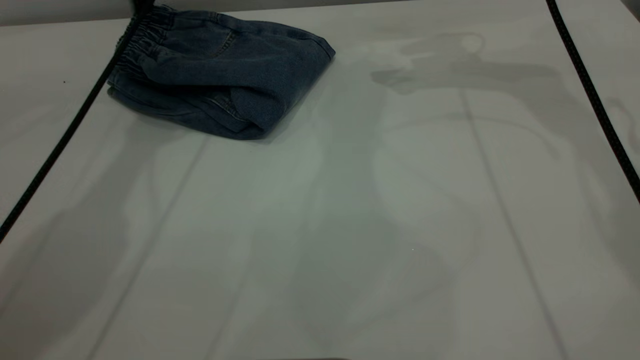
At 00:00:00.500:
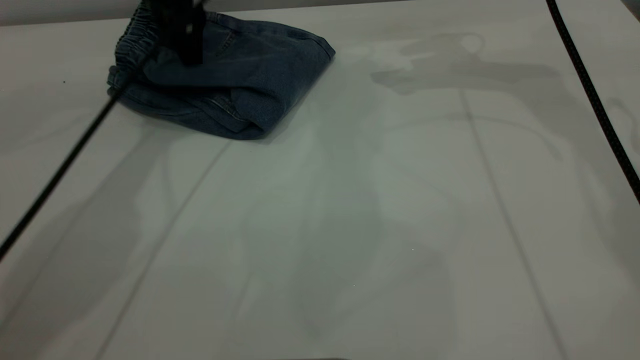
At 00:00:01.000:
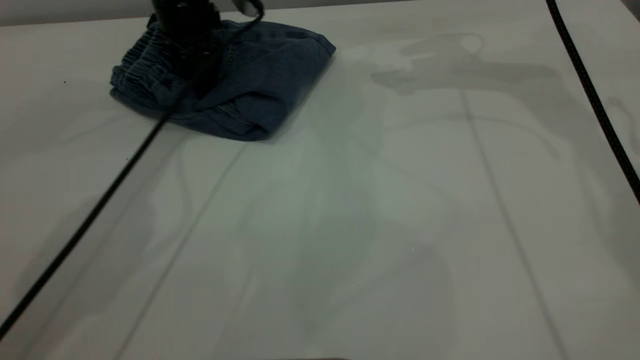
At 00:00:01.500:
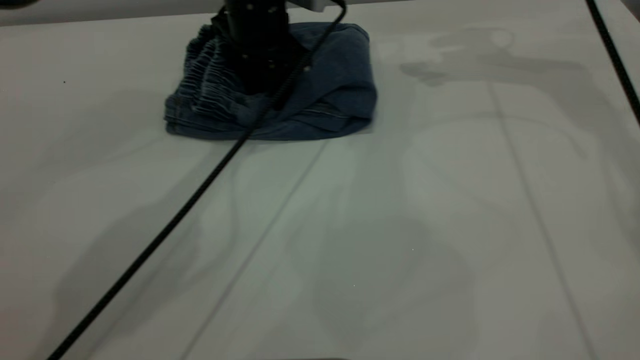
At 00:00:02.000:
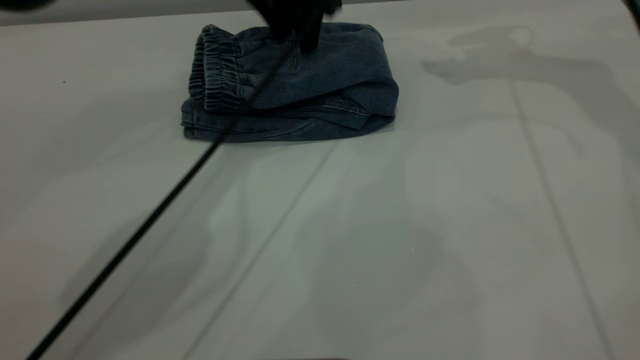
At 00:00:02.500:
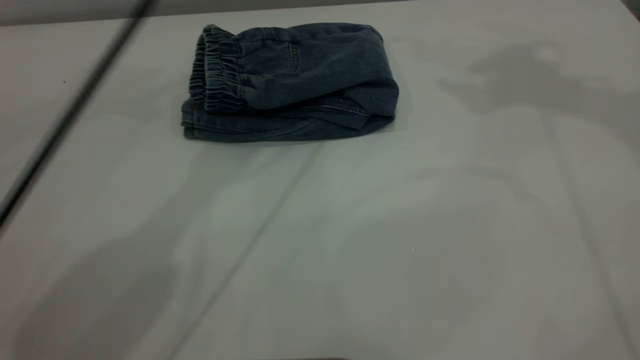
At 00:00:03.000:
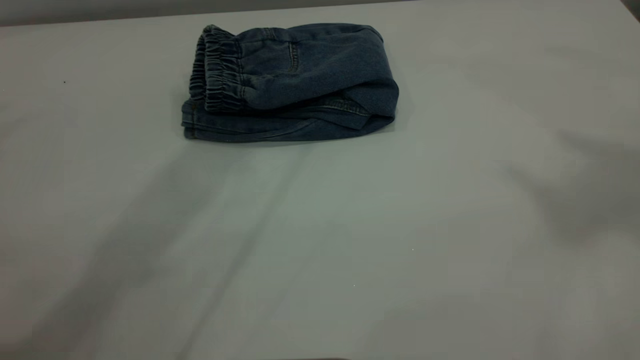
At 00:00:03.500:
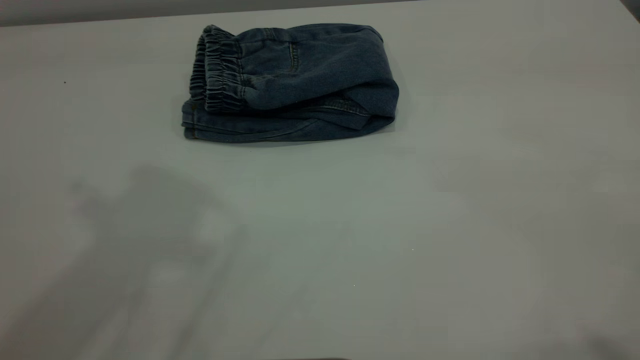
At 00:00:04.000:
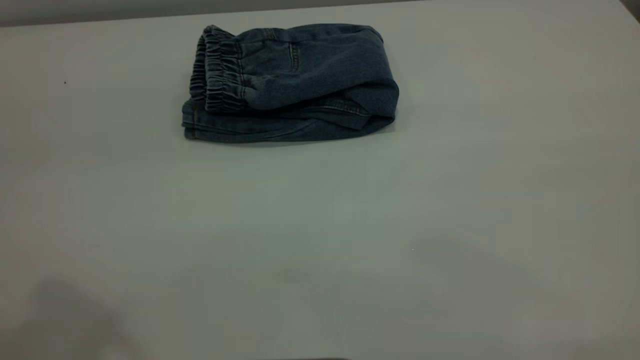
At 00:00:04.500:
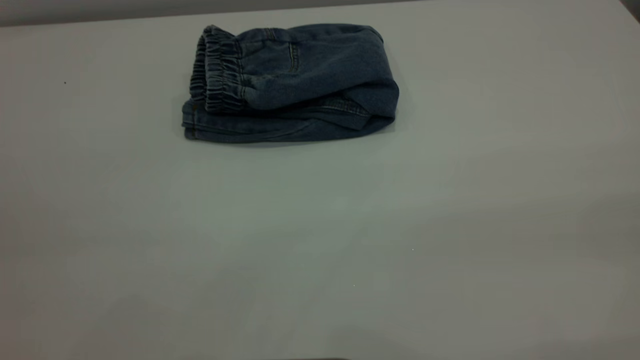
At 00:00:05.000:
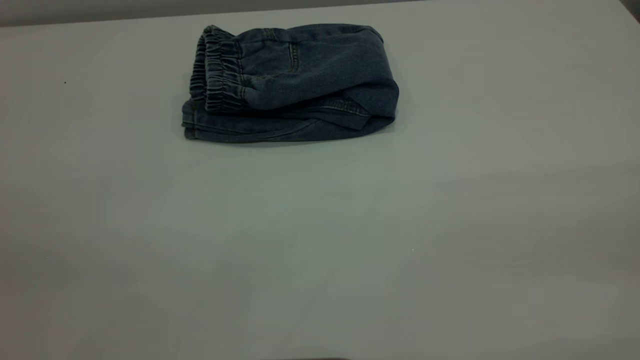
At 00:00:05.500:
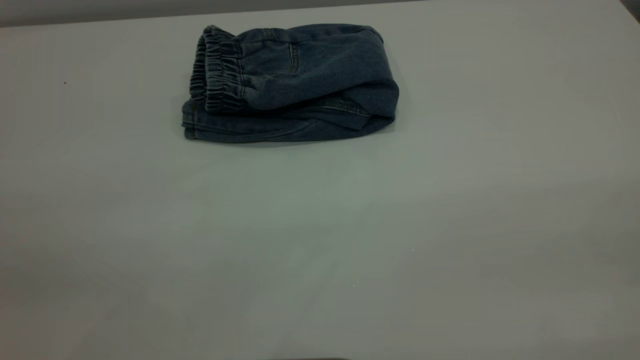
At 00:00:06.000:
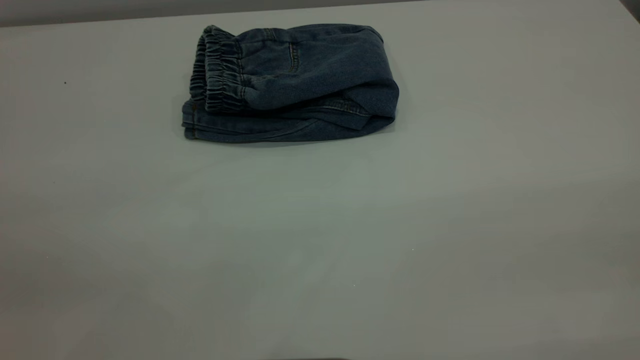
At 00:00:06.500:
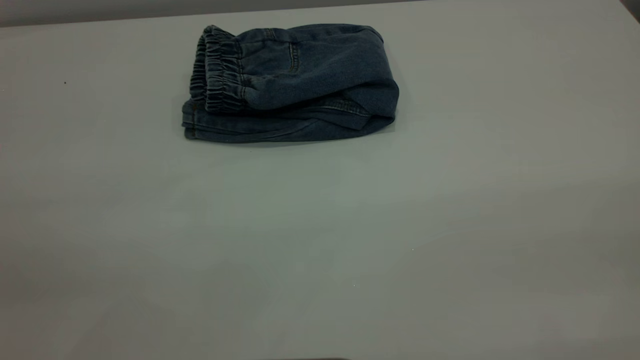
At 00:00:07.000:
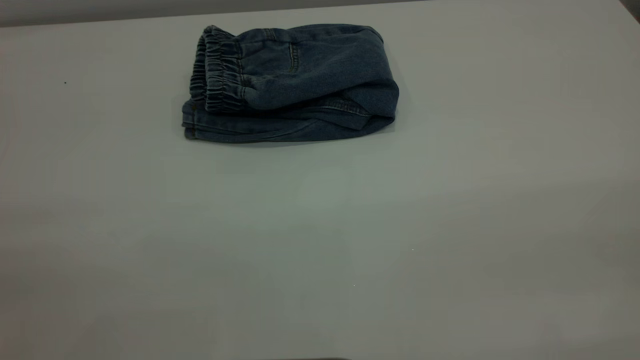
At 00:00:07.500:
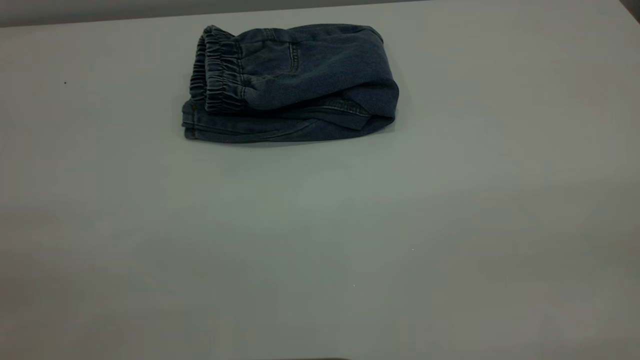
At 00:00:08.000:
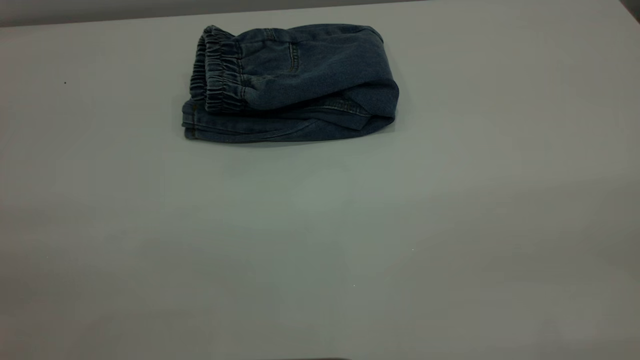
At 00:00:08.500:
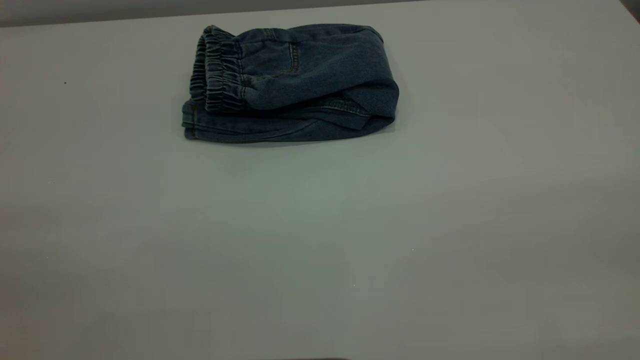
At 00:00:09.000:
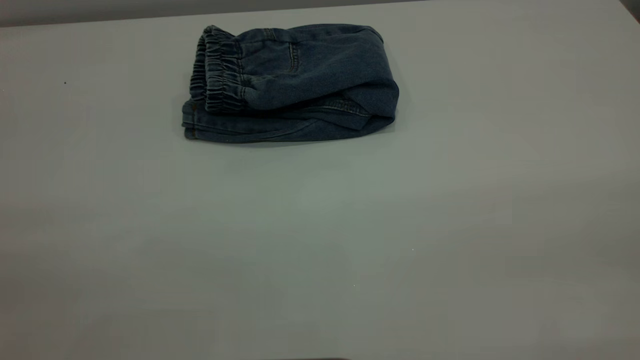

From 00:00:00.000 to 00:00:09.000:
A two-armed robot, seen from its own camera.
From 00:00:00.000 to 00:00:02.000: The right gripper heads to the right, covering some 5 cm, while the left gripper travels to the right by roughly 15 cm.
From 00:00:02.000 to 00:00:04.500: The right gripper moves backward, about 50 cm. Meanwhile the left gripper goes some 50 cm backward and to the left.

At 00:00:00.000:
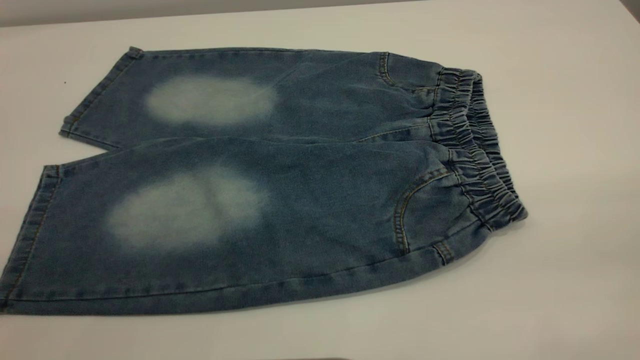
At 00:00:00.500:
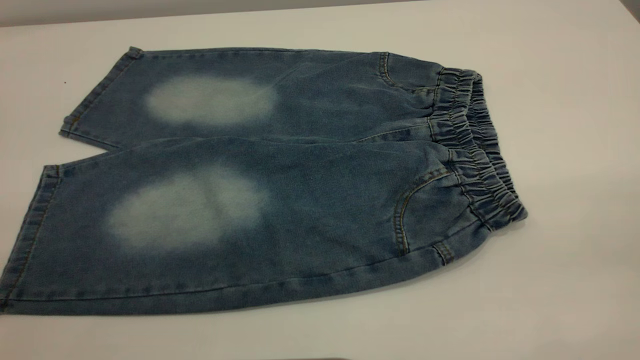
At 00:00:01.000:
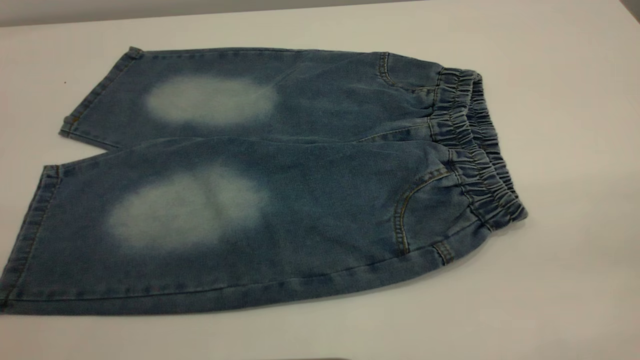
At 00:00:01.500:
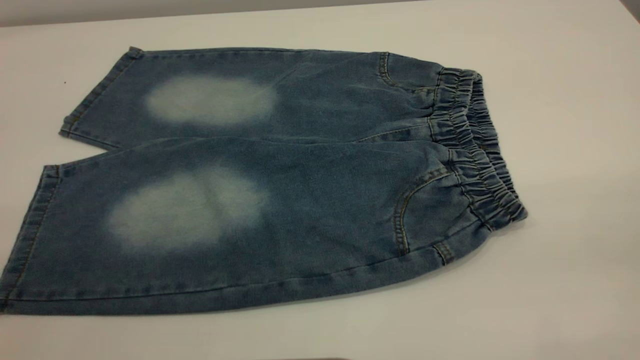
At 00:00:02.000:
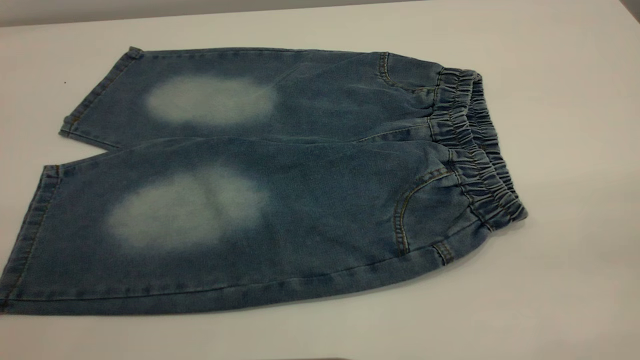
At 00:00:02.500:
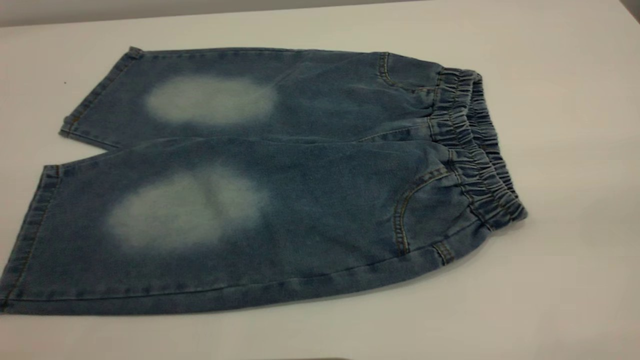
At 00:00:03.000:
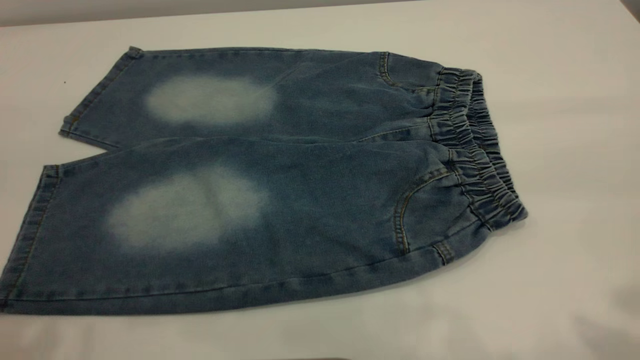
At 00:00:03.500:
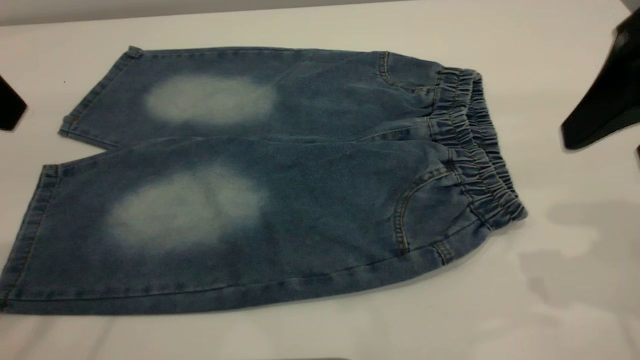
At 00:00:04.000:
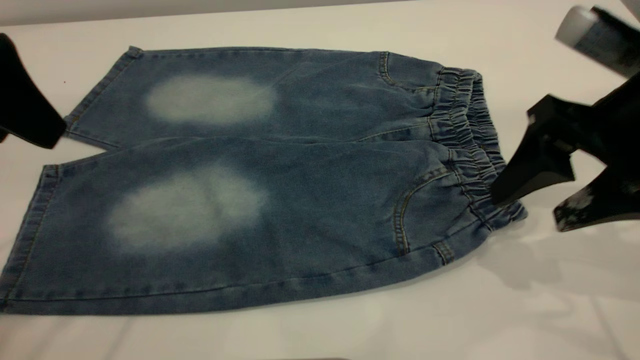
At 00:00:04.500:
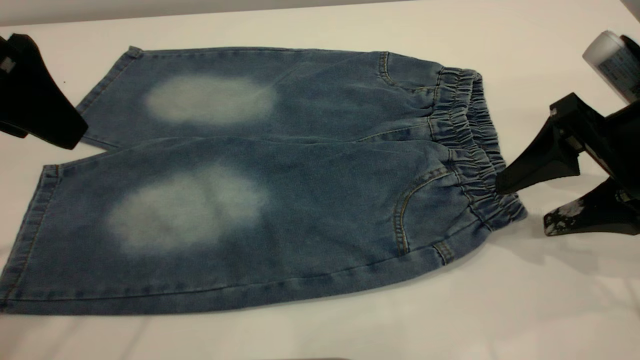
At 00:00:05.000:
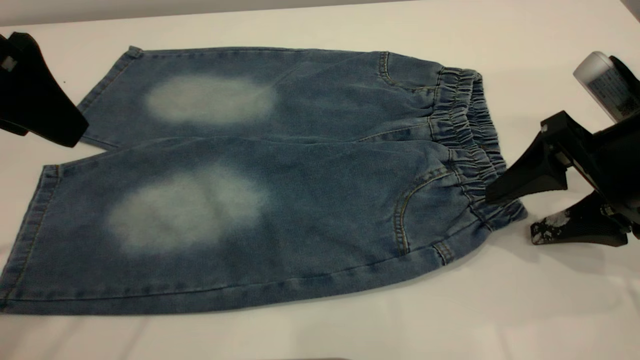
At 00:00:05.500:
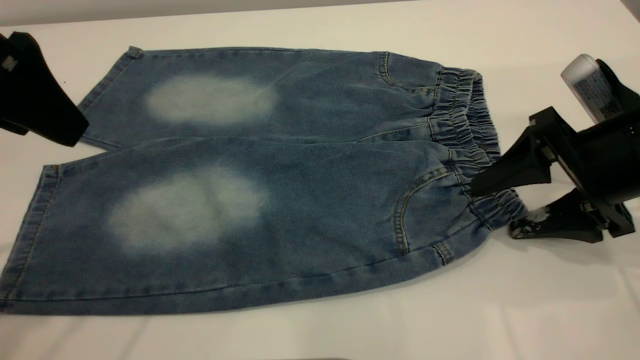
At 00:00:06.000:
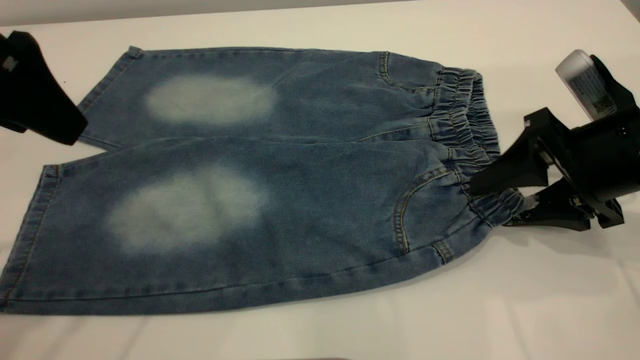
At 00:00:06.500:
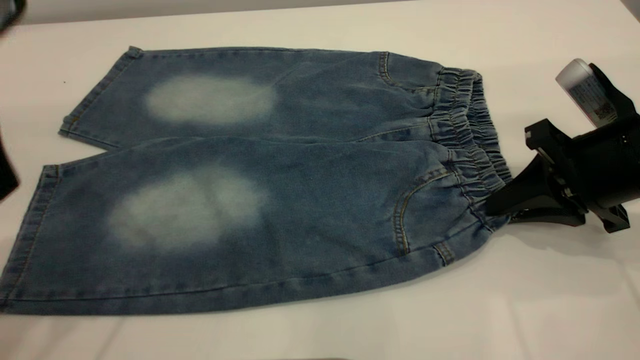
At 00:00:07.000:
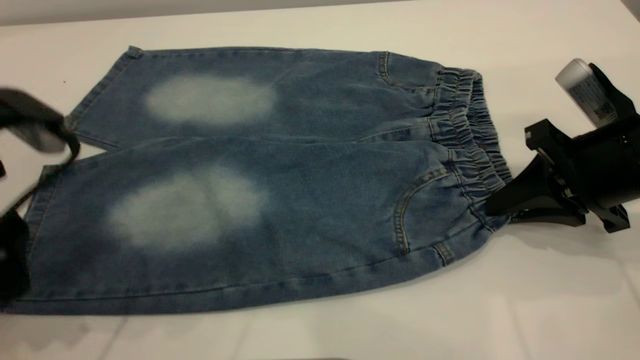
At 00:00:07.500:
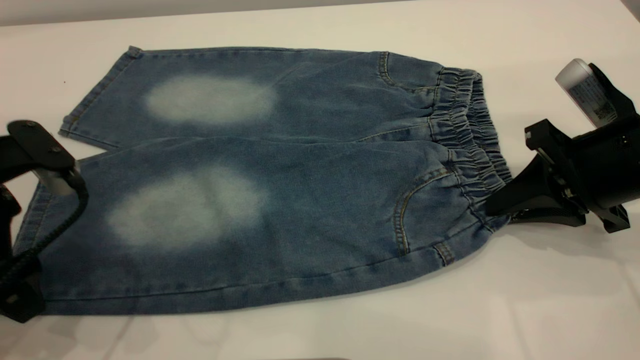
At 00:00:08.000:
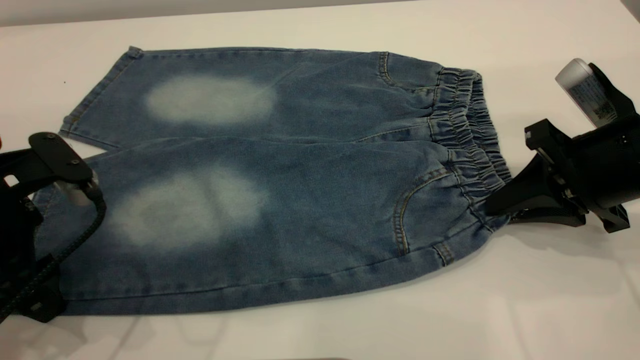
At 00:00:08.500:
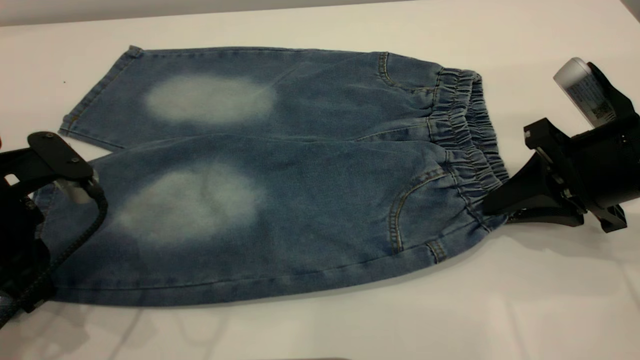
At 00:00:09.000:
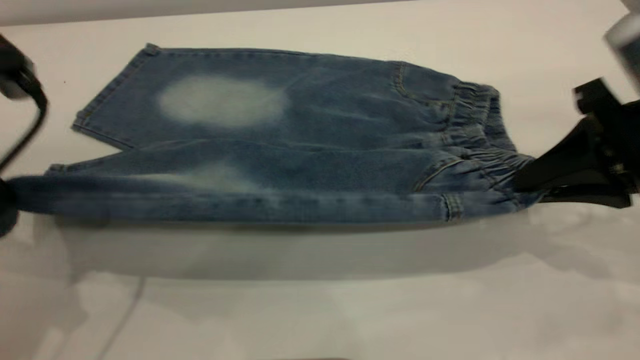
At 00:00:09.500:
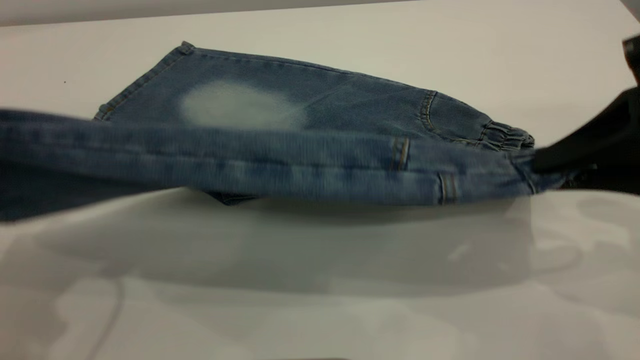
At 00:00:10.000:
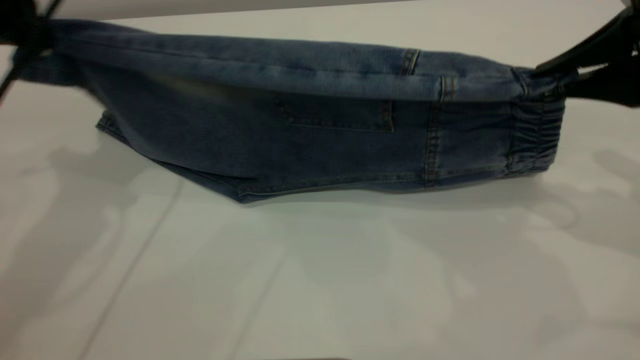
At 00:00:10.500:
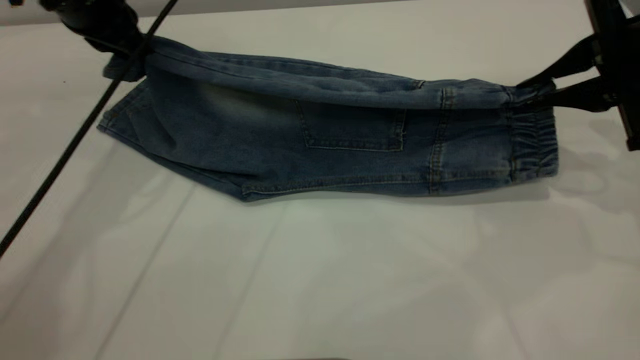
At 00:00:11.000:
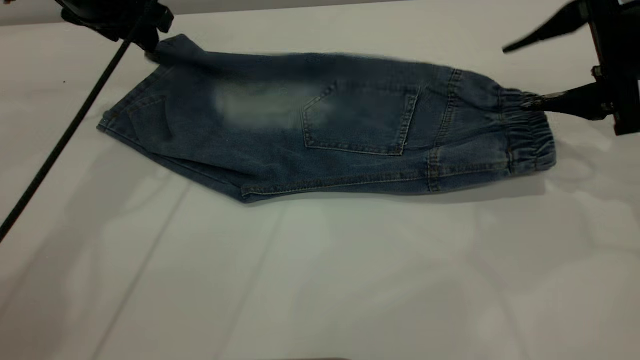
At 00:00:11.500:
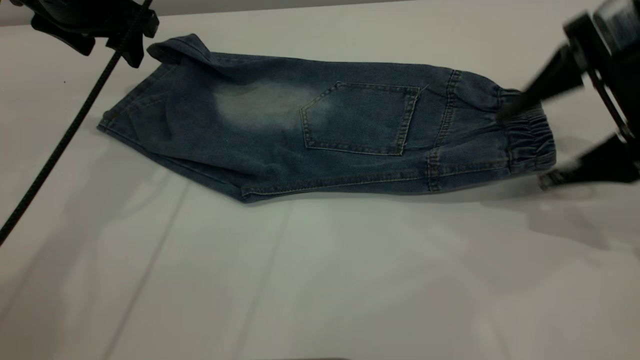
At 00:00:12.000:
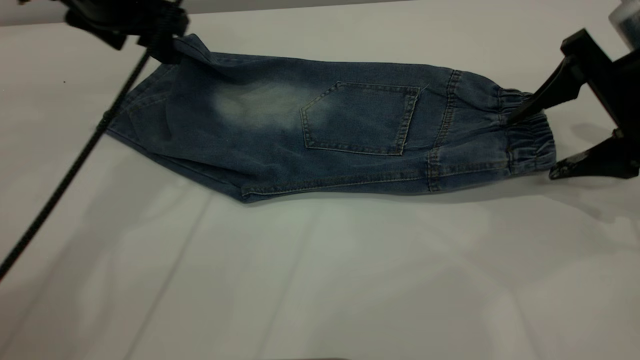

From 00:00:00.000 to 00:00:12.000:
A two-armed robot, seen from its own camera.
Step, from 00:00:00.000 to 00:00:11.000: Fold the bottom of the pants upward.
From 00:00:00.000 to 00:00:02.000: Both grippers stay put.
From 00:00:02.000 to 00:00:04.000: The left gripper moves forward, roughly 25 cm. Meanwhile the right gripper shifts approximately 30 cm forward and downward.
From 00:00:04.000 to 00:00:06.000: The right gripper moves downward, some 5 cm.
From 00:00:06.000 to 00:00:08.000: The right gripper closes. Meanwhile the left gripper shifts roughly 15 cm downward.
From 00:00:08.000 to 00:00:10.000: The left gripper moves upward and forward, some 20 cm, and closes, while the right gripper heads upward, covering some 10 cm.
From 00:00:10.000 to 00:00:12.000: The right gripper heads downward, covering roughly 5 cm, and opens up. The left gripper is displaced forward and to the right by about 10 cm, and opens.
